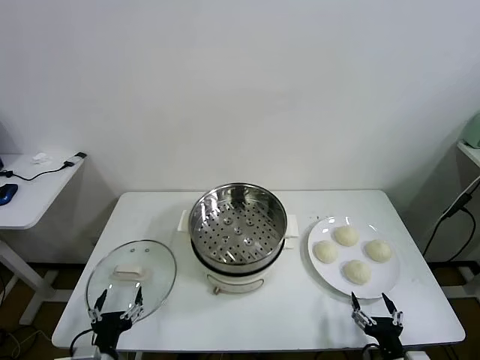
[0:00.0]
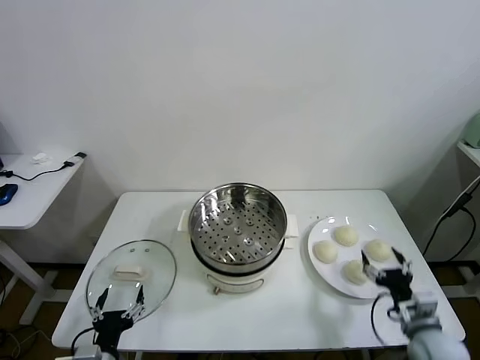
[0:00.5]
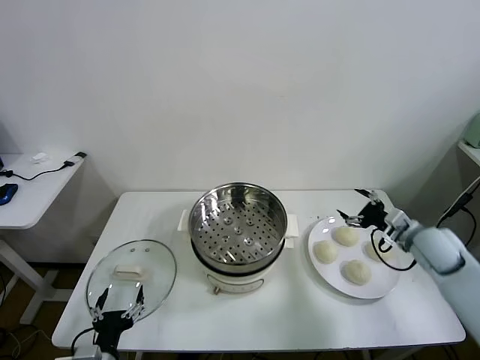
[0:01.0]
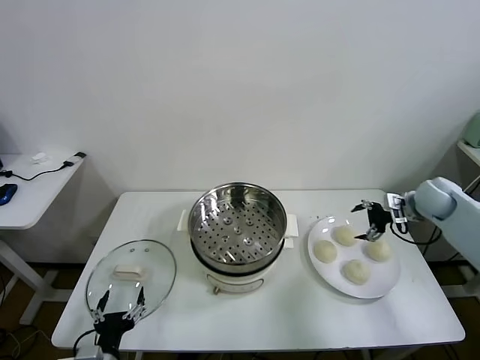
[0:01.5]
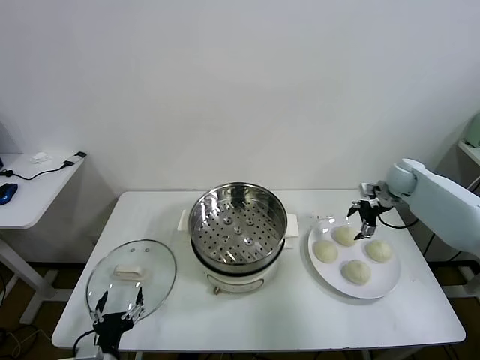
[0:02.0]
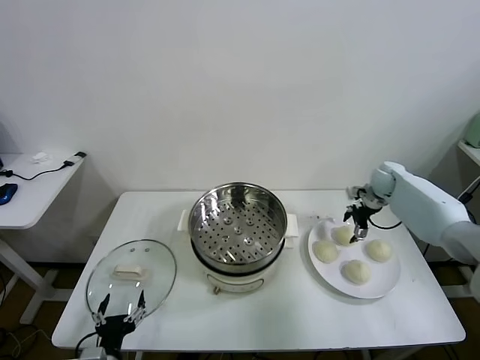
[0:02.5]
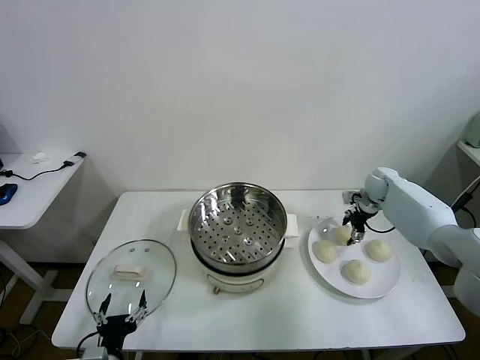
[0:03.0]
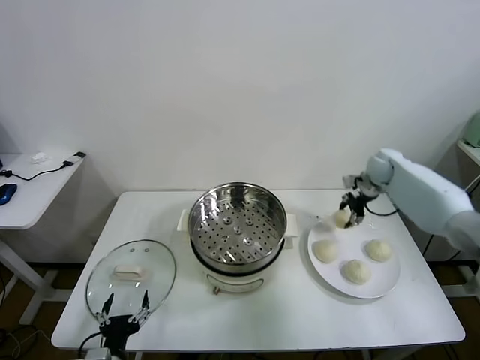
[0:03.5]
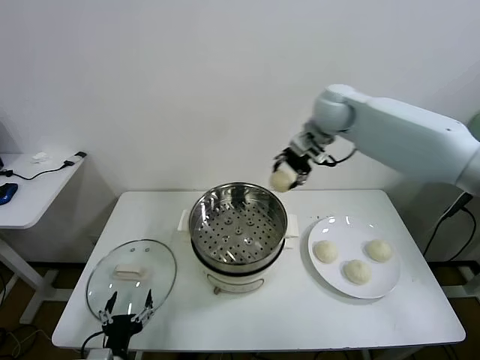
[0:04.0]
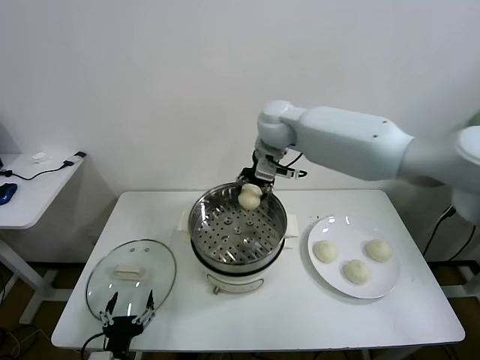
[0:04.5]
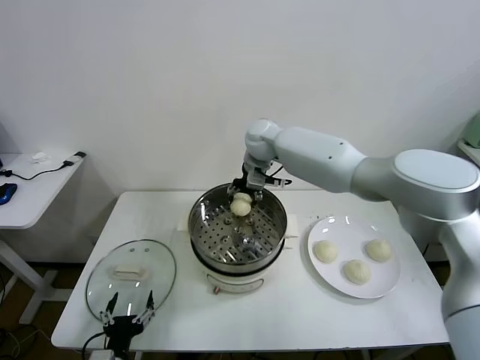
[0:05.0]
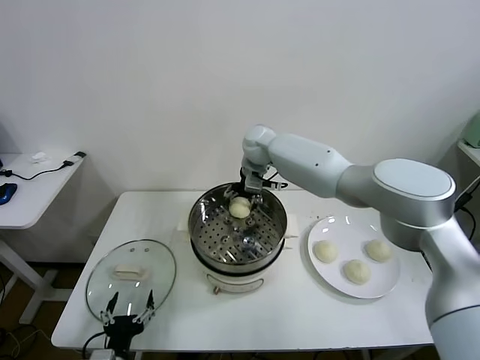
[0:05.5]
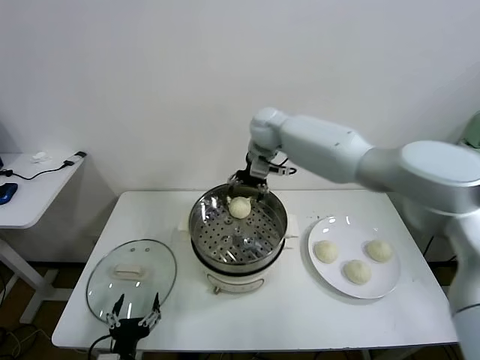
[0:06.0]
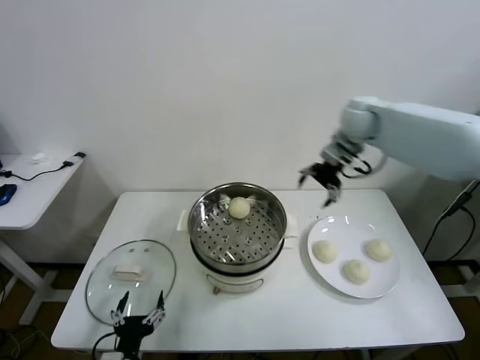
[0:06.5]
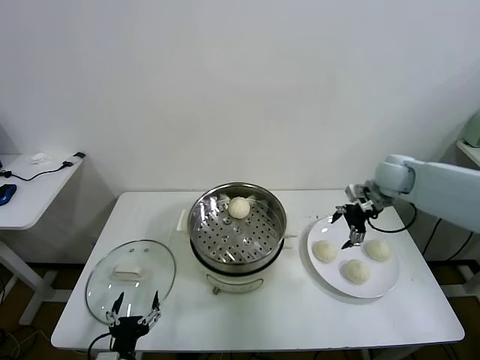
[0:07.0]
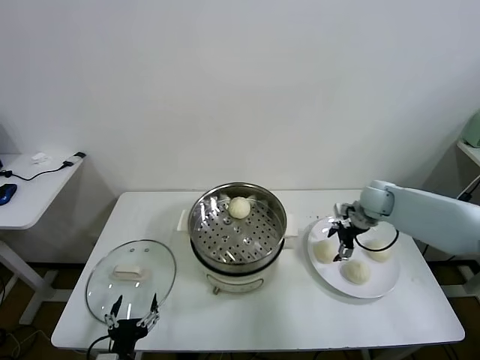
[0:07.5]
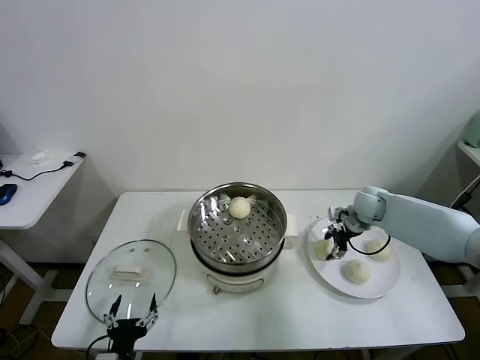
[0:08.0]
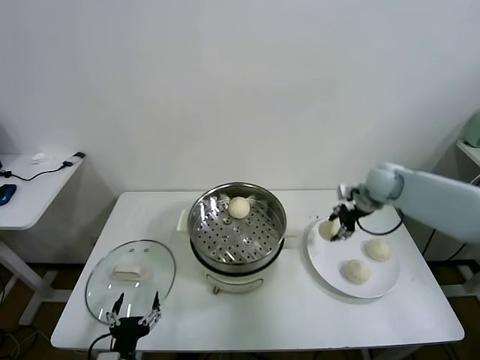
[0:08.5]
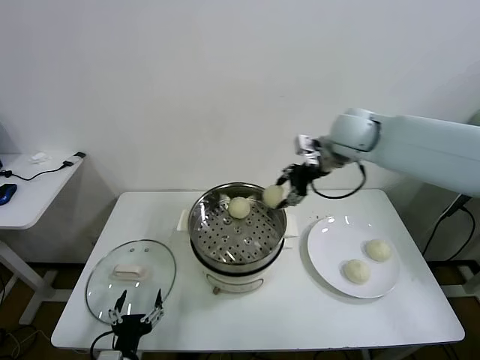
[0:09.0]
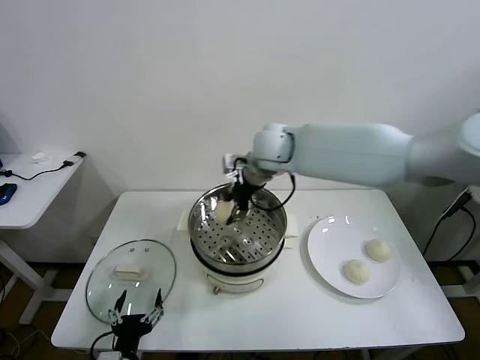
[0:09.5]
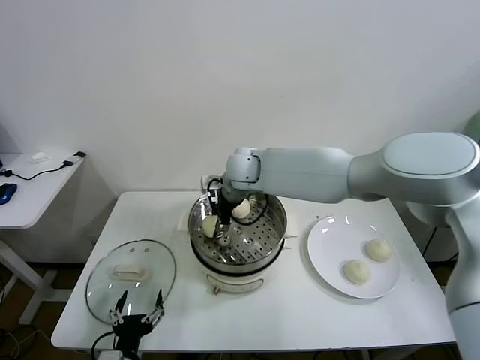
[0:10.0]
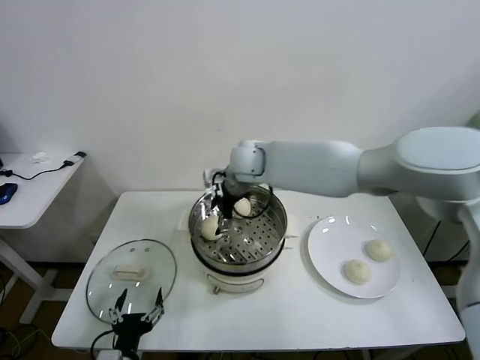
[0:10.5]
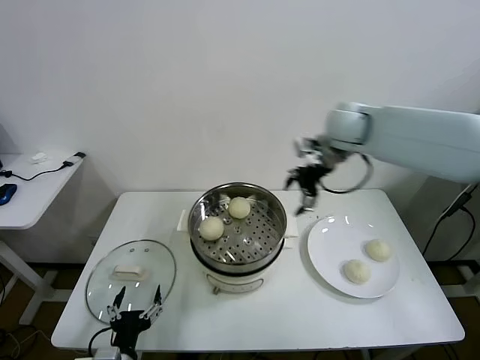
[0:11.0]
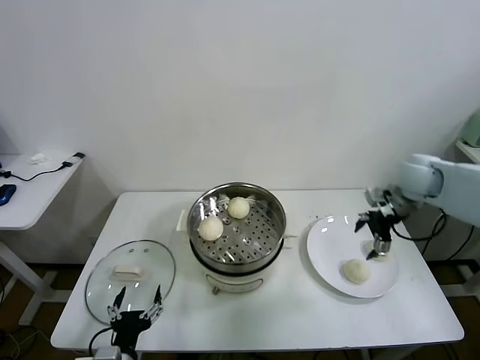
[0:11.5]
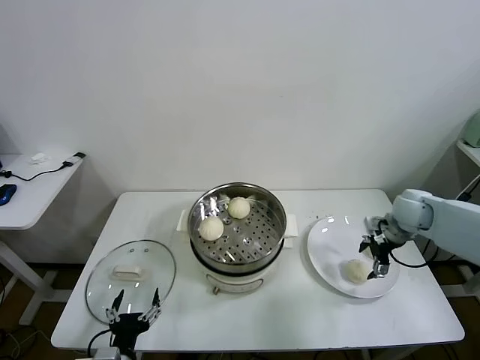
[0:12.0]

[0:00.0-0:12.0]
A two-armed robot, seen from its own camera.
Task of the whole recording: take steamed baozi put them in steamer.
Step, 0:00.0 to 0:03.0: Grasp the baozi in the plate with right gripper.
Step, 0:03.5 to 0:05.5: Place the baozi on the steamer with right gripper.
Step, 0:06.0 to 0:07.5: Grasp the baozi in the plate with right gripper.
Step, 0:08.0 to 0:10.0: Place the baozi on the steamer with right gripper.
0:02.0 to 0:04.0: The right gripper travels to the left and upward by roughly 35 cm, and closes its fingers.
0:04.0 to 0:06.0: The right gripper shifts roughly 10 cm to the left, downward and forward, and opens up.
0:06.0 to 0:08.0: The right gripper travels to the right and downward by roughly 35 cm, and closes up.
0:08.0 to 0:10.0: The right gripper goes some 35 cm to the left.
0:10.0 to 0:12.0: The right gripper heads to the right, covering approximately 40 cm, and opens up.

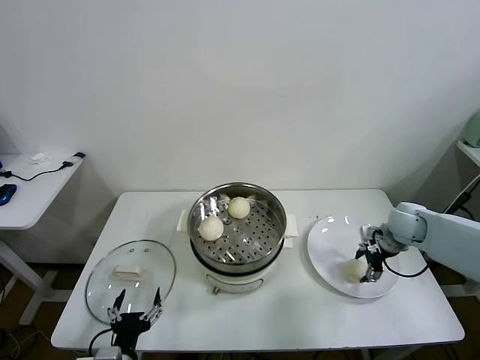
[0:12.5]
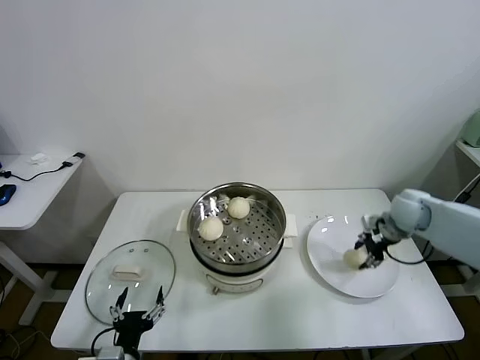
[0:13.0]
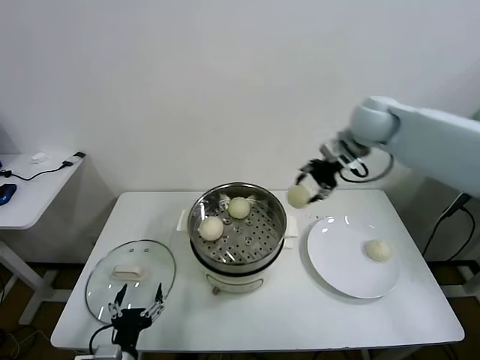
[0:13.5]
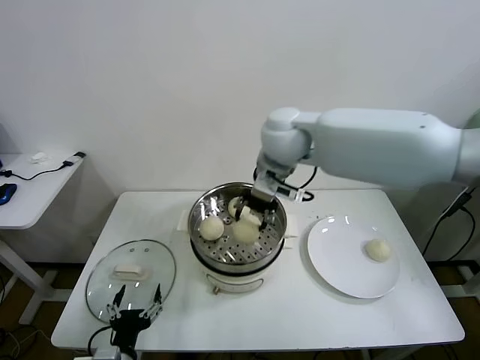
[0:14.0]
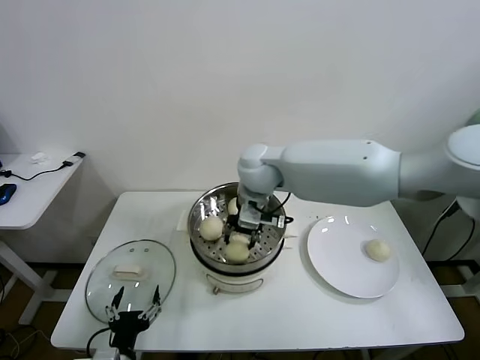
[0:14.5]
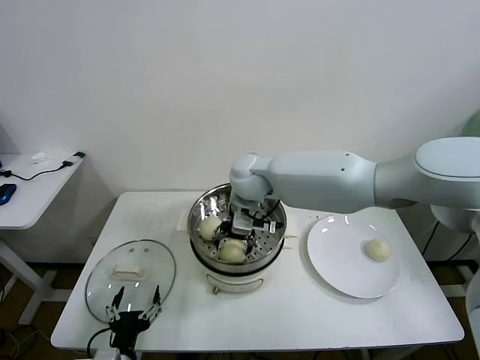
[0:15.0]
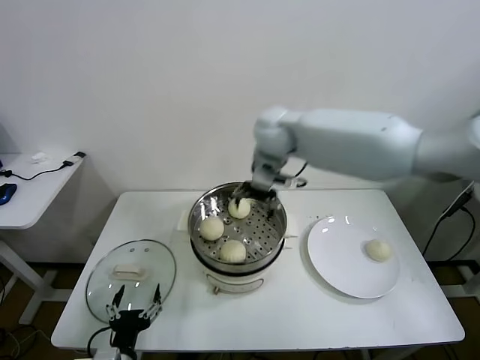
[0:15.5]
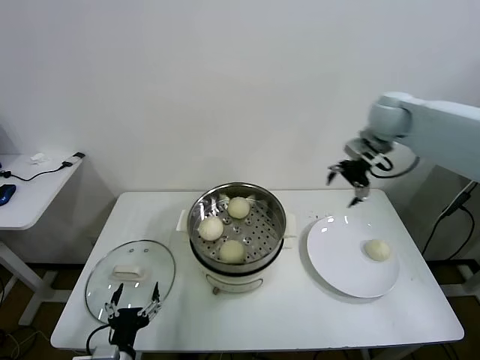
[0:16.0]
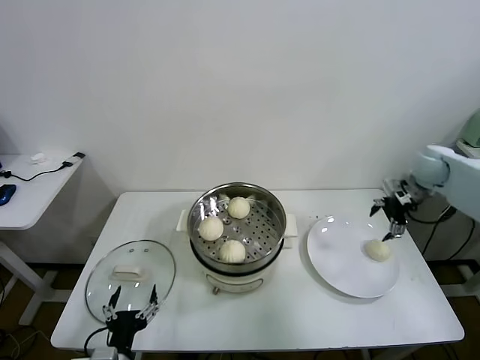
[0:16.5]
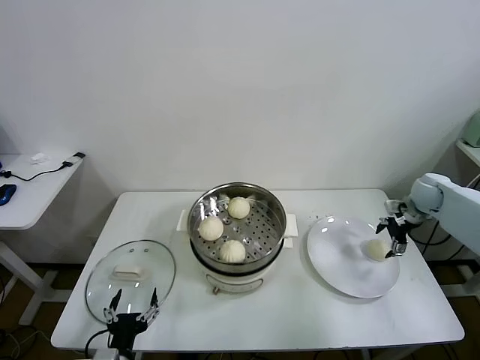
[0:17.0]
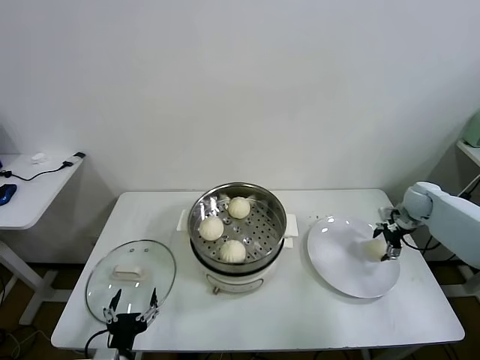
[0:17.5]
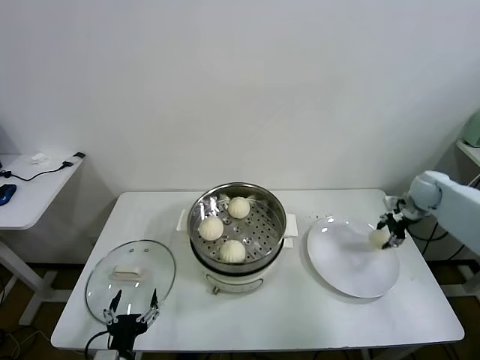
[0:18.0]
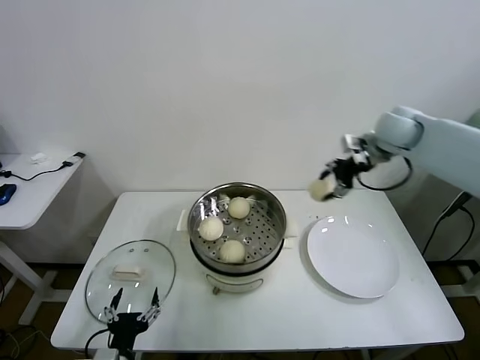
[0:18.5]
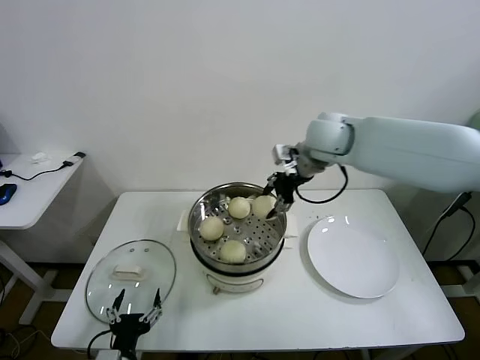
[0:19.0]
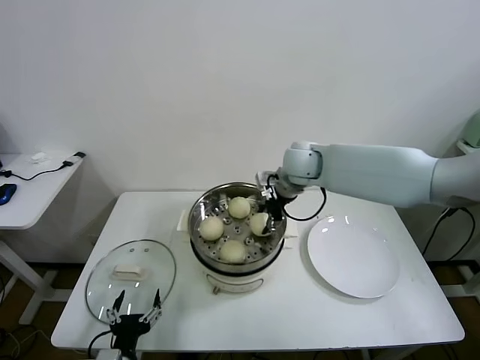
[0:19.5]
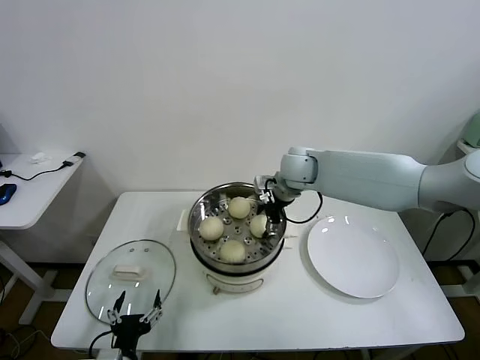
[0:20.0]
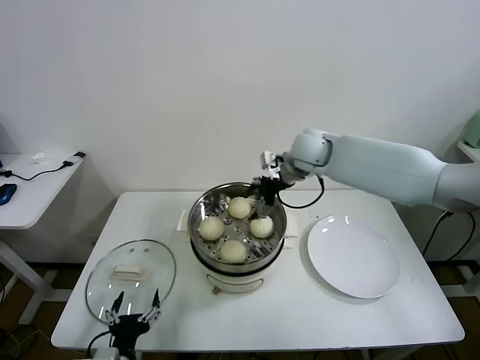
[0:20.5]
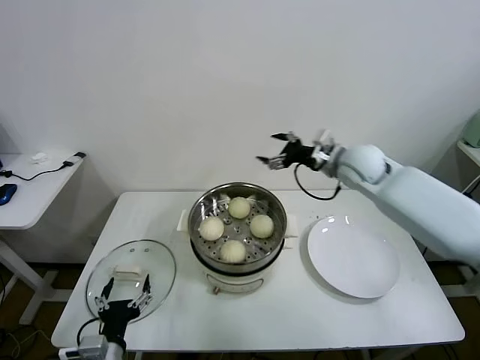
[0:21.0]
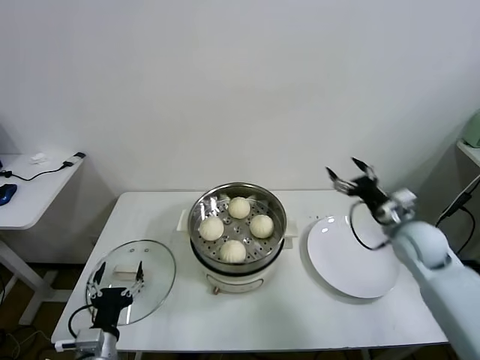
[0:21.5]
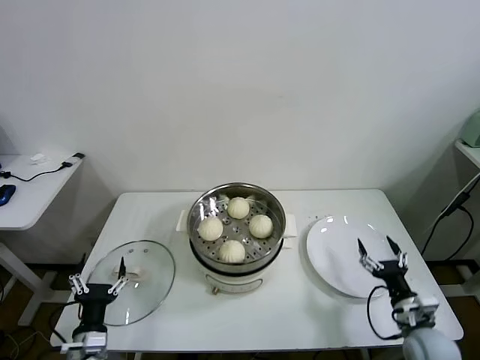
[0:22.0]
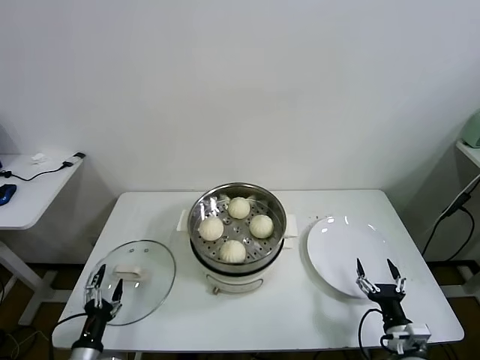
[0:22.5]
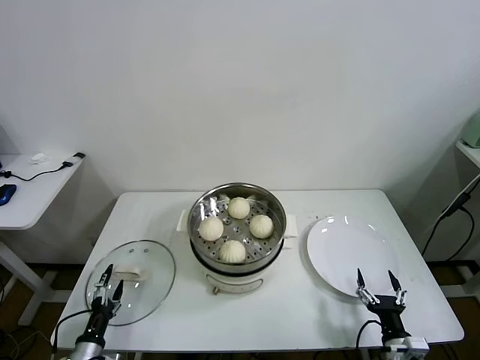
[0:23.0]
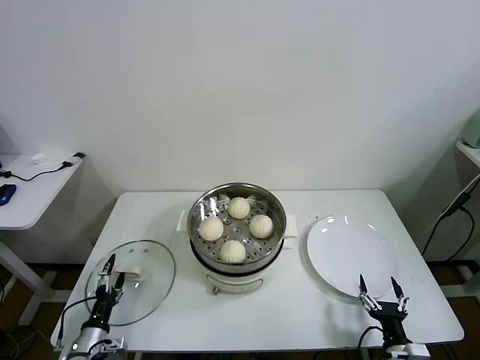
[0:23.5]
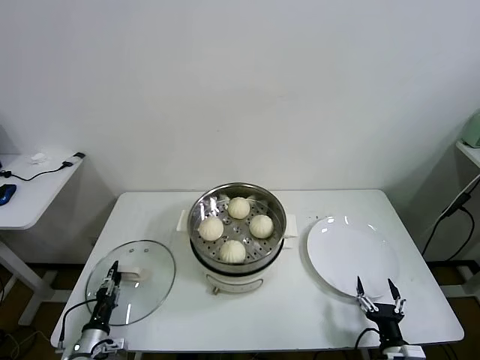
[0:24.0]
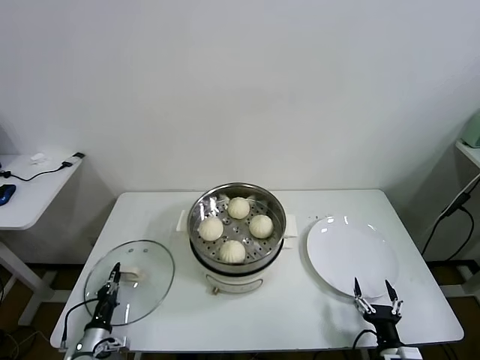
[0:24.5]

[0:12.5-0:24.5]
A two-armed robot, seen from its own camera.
Task of the whole recording: take steamed baozi put them in steamer.
Step, 0:13.0 to 0:15.0: Place the baozi on the steamer with right gripper.
Step, 0:15.5 to 0:17.5: Grasp the baozi in the plate with right gripper.
Step, 0:18.0 to 0:20.0: Place the baozi on the steamer with right gripper.
Step, 0:20.5 to 0:24.0: Grasp the pot lid with left gripper.
0:12.5 to 0:14.5: The right gripper travels to the left and upward by roughly 40 cm, and closes up.
0:14.5 to 0:16.5: The right gripper shifts roughly 40 cm to the right, and opens.
0:16.5 to 0:18.5: The right gripper travels to the left and upward by about 15 cm, and closes up.
0:18.5 to 0:20.5: The right gripper goes about 15 cm to the left, and opens up.
0:20.5 to 0:22.5: The right gripper heads backward, downward and to the right, covering approximately 50 cm, while the left gripper heads to the left and downward, covering some 15 cm.
0:22.5 to 0:24.5: The left gripper heads downward and forward, covering roughly 10 cm, and closes up; the right gripper moves about 5 cm.

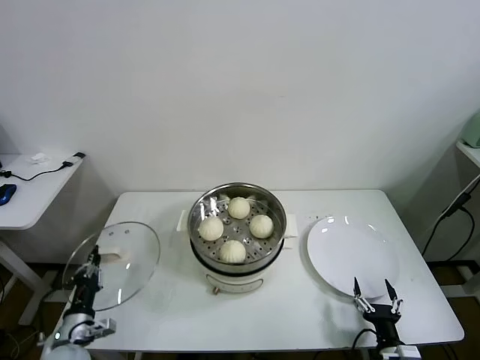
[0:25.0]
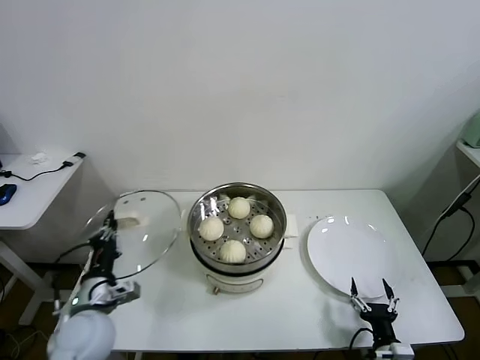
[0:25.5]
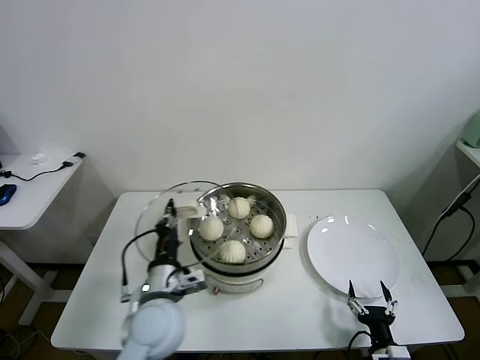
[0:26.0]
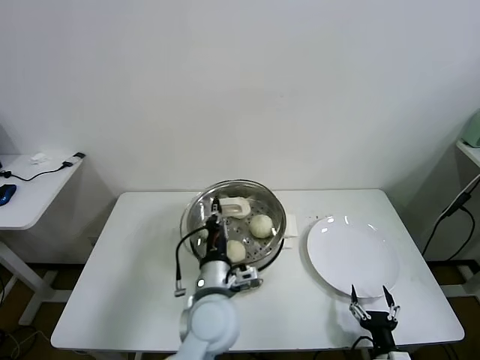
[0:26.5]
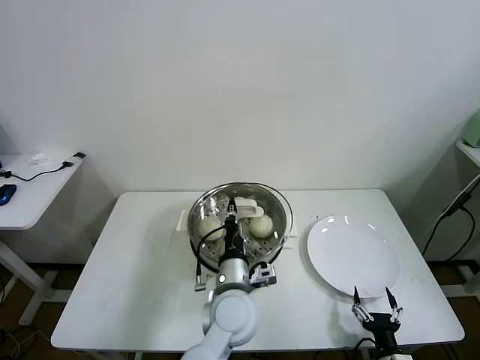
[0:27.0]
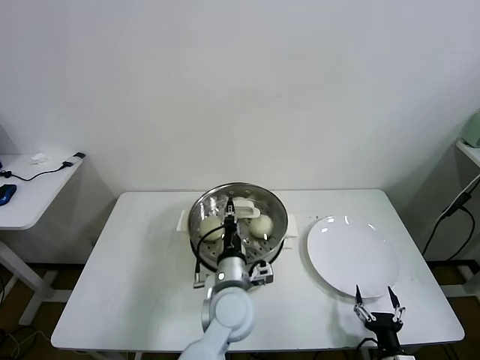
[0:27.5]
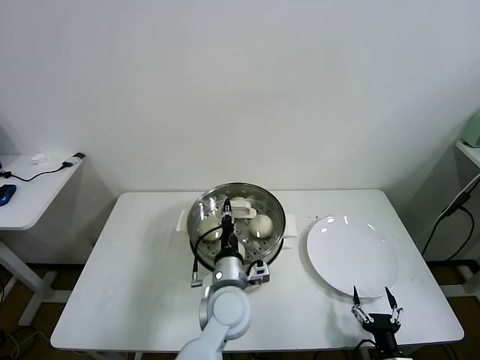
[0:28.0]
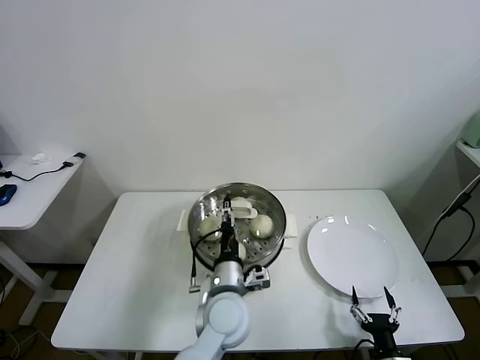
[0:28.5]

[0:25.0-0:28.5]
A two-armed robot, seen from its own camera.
Task of the whole recording: take steamed baozi put them in steamer.
0:25.0 to 0:27.0: The left gripper is displaced to the right and upward by about 40 cm.
0:27.0 to 0:28.5: The left gripper opens up.
